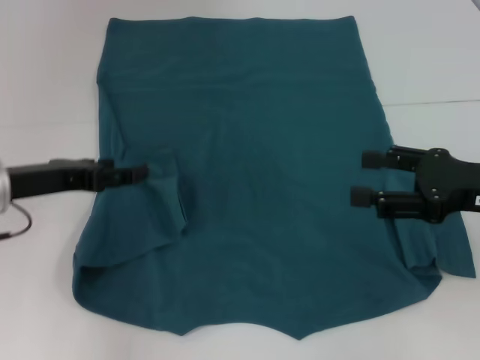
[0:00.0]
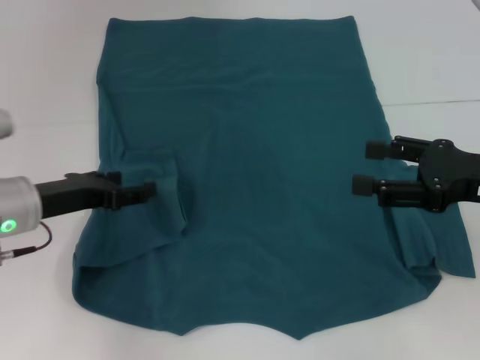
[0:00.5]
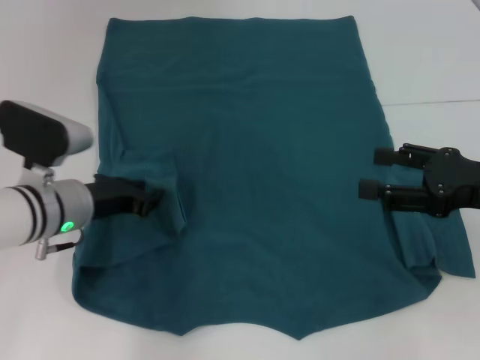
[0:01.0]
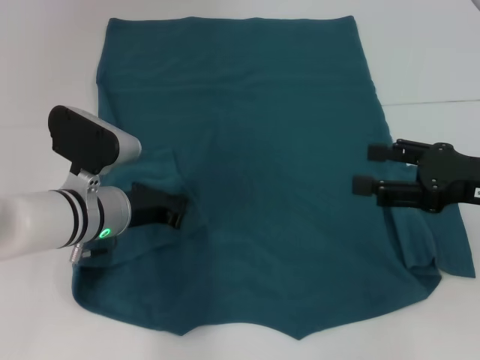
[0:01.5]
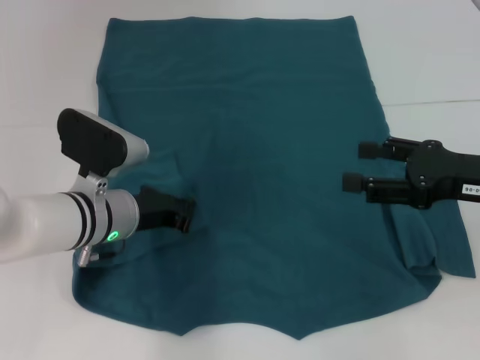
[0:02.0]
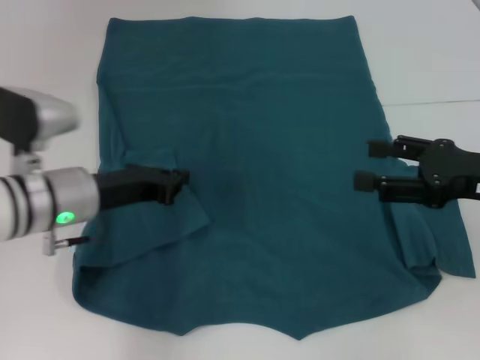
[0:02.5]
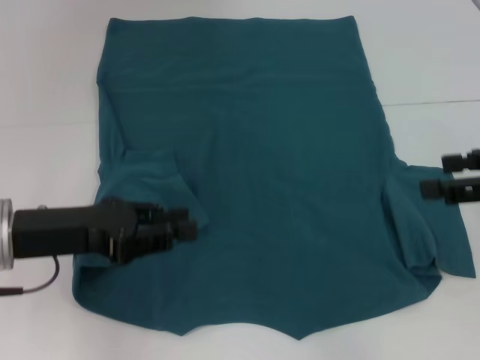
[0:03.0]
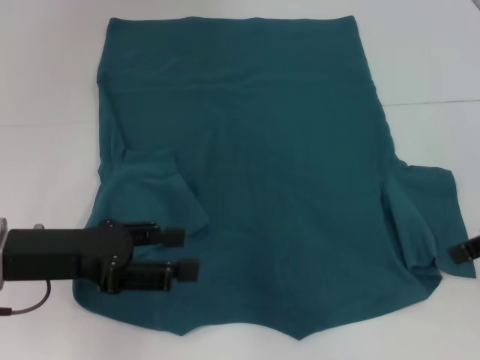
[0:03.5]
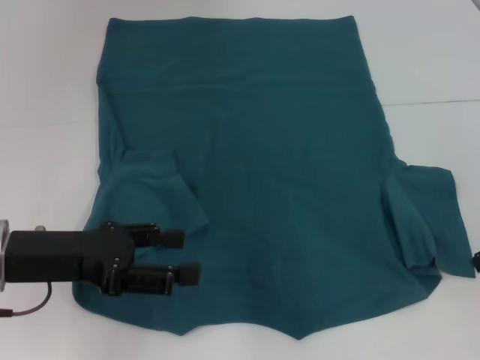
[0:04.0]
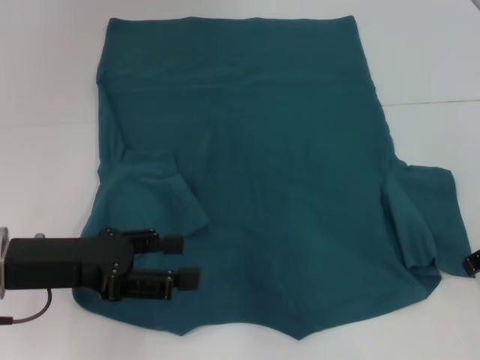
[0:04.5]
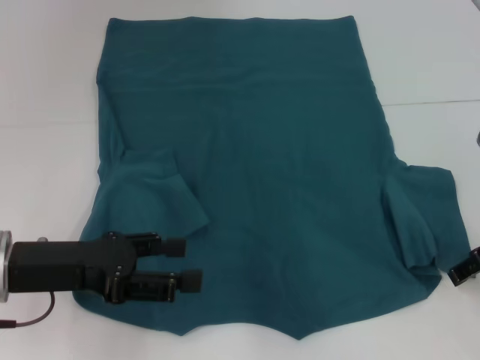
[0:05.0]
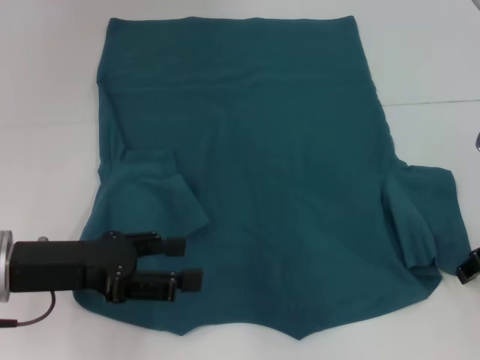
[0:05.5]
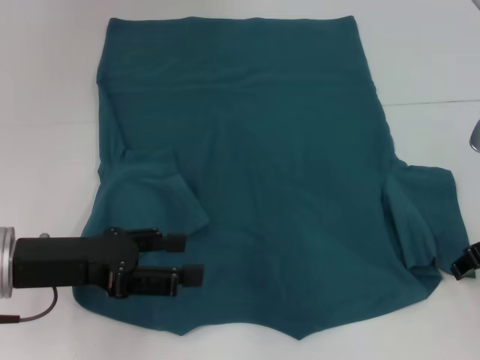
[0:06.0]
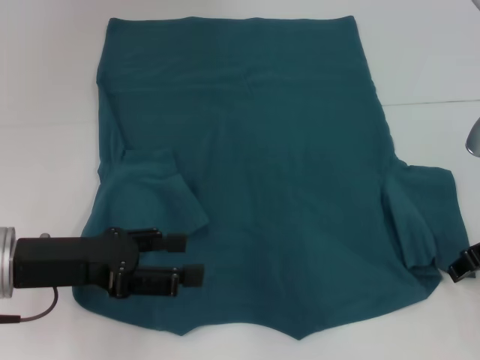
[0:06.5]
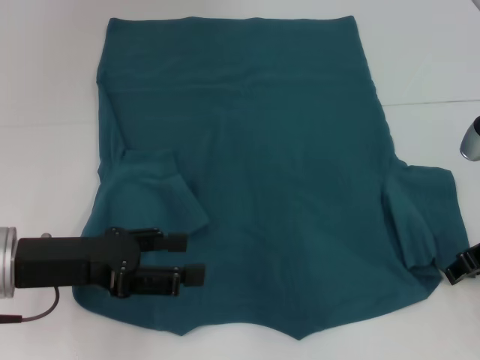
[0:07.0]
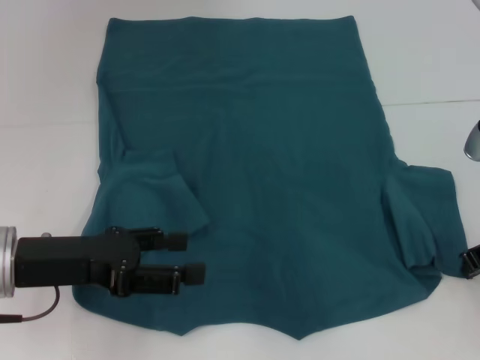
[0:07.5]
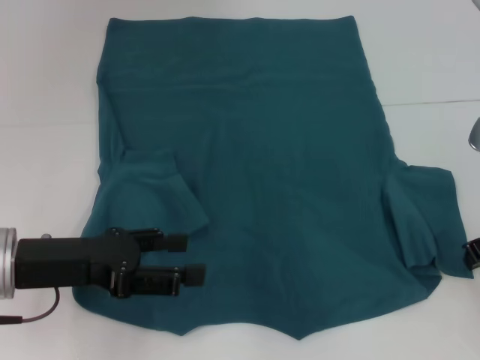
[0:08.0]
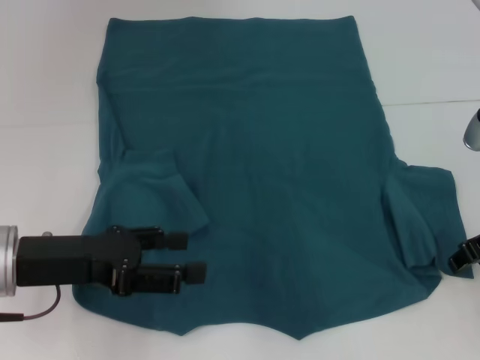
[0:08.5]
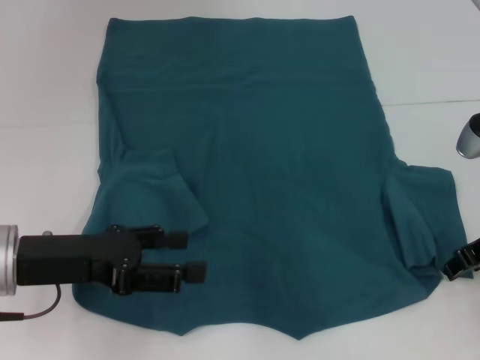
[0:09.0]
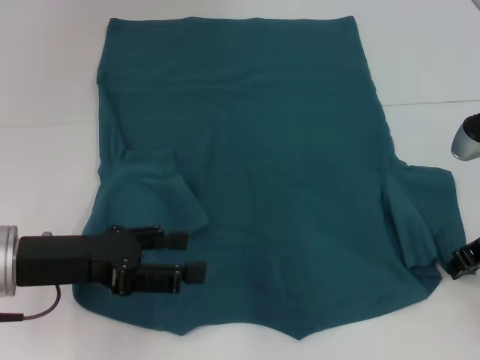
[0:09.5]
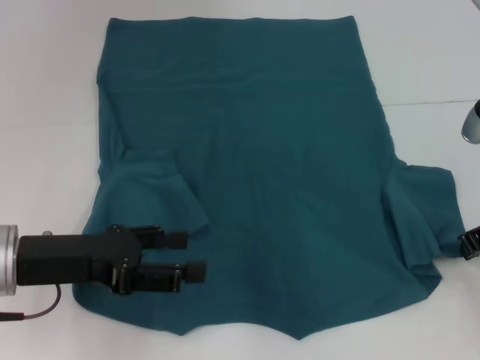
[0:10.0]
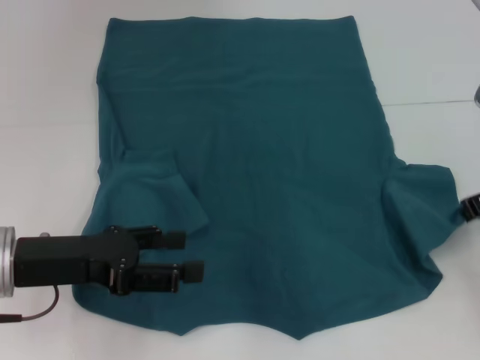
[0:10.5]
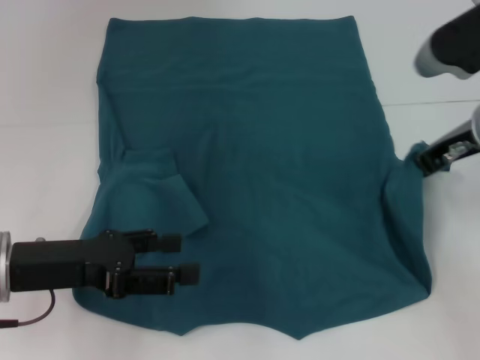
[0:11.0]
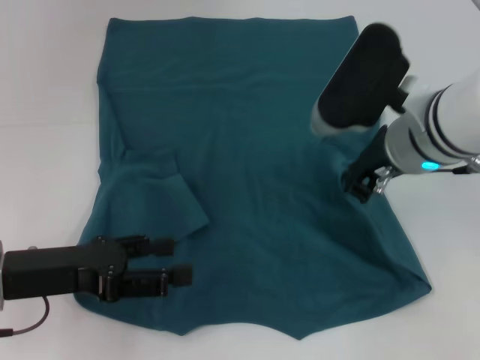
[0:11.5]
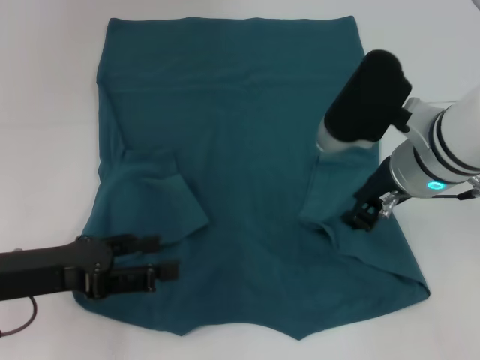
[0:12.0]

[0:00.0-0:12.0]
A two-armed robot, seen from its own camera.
0.0 to 2.0 s: The left gripper is displaced to the right and downward by roughly 15 cm, and closes.
2.0 to 4.0 s: The left gripper is displaced to the left, backward and upward by approximately 15 cm, and opens.
4.0 to 6.0 s: The right gripper is displaced downward by some 5 cm.
8.0 to 10.0 s: There are only small adjustments of the grippers.
10.0 to 12.0 s: The right gripper moves to the left, approximately 15 cm.

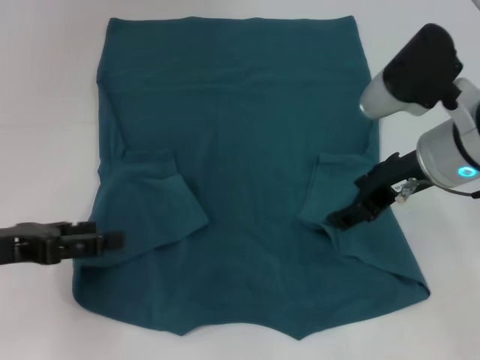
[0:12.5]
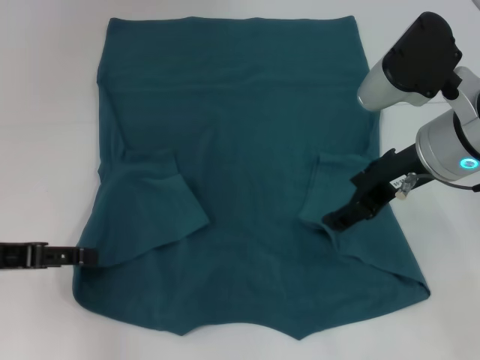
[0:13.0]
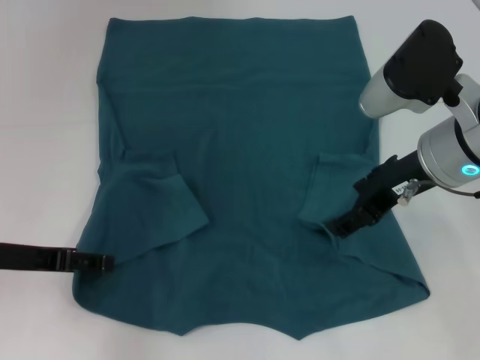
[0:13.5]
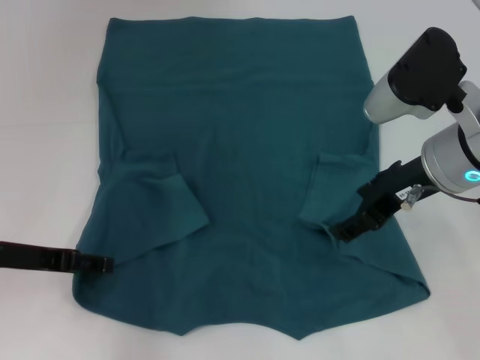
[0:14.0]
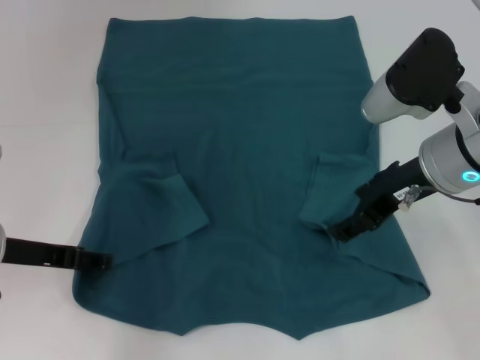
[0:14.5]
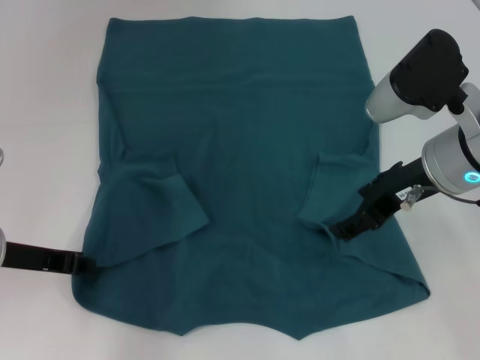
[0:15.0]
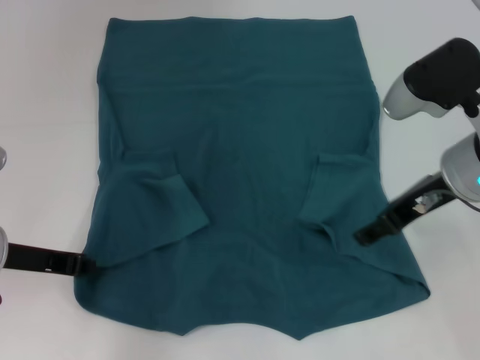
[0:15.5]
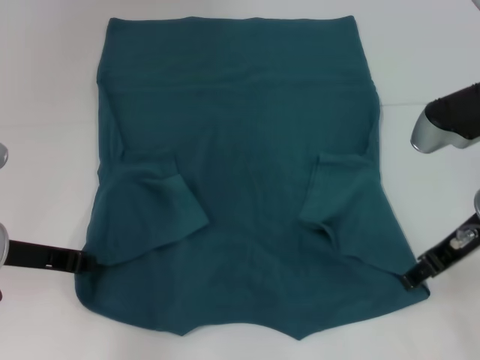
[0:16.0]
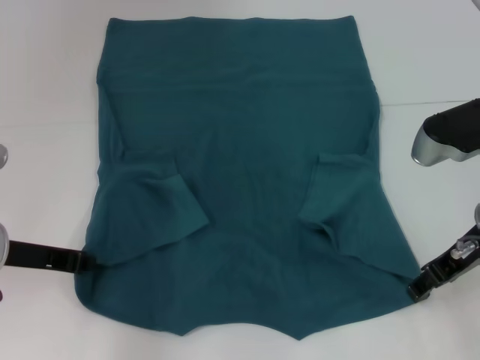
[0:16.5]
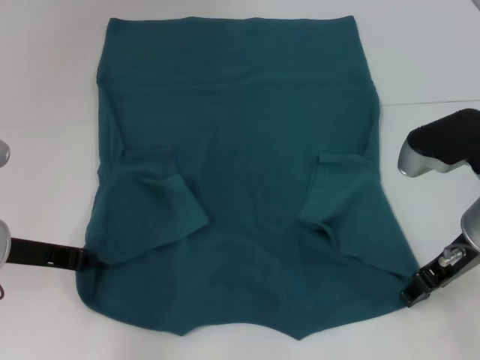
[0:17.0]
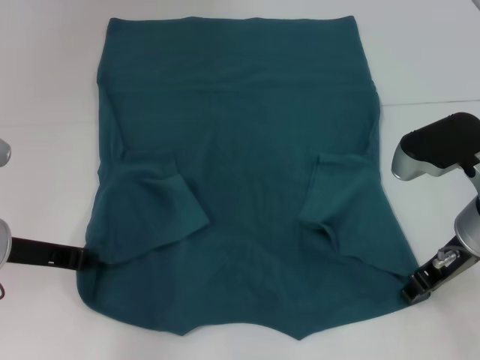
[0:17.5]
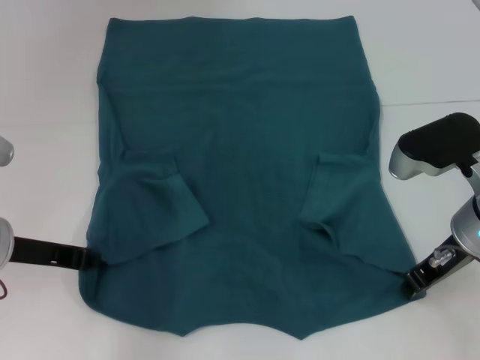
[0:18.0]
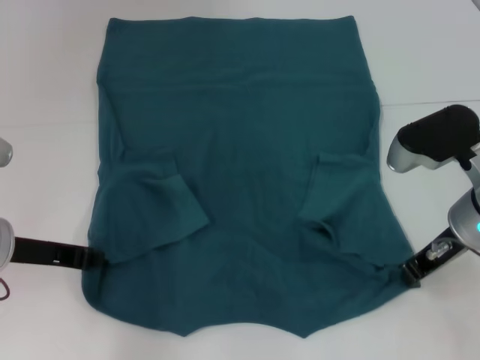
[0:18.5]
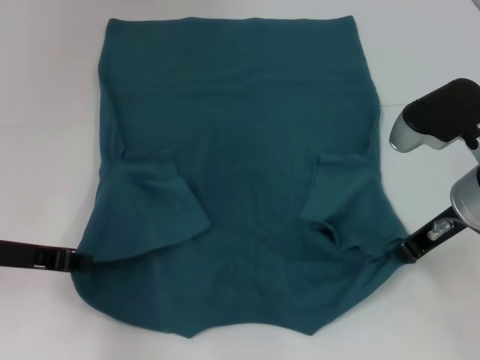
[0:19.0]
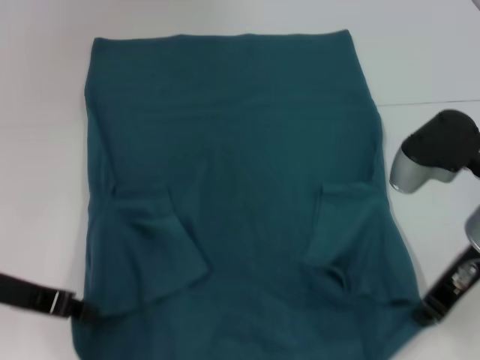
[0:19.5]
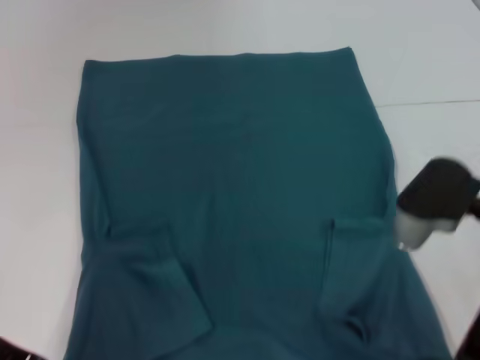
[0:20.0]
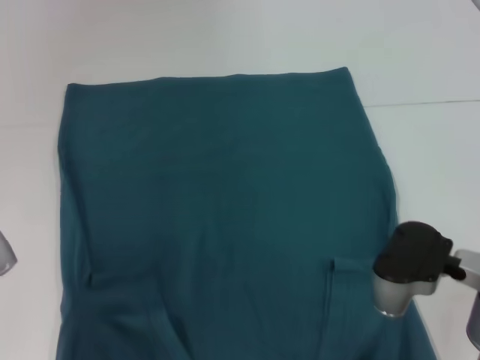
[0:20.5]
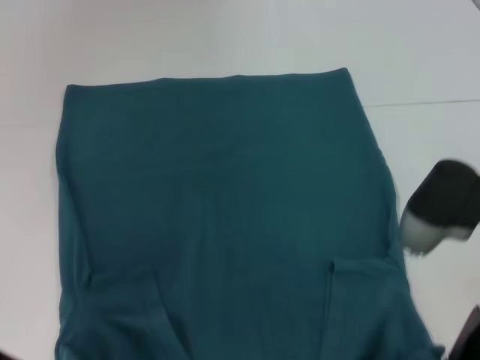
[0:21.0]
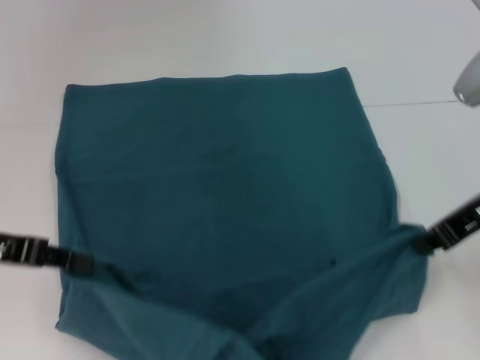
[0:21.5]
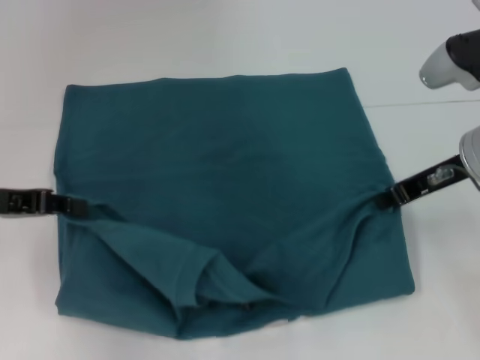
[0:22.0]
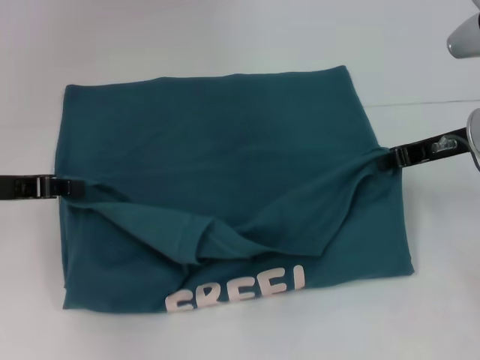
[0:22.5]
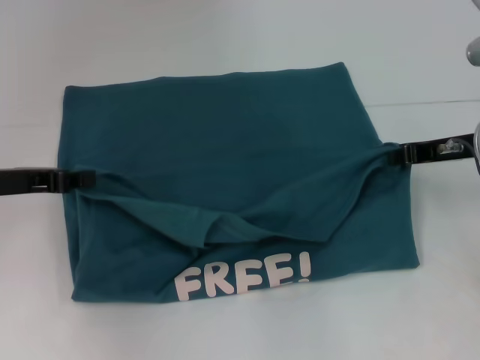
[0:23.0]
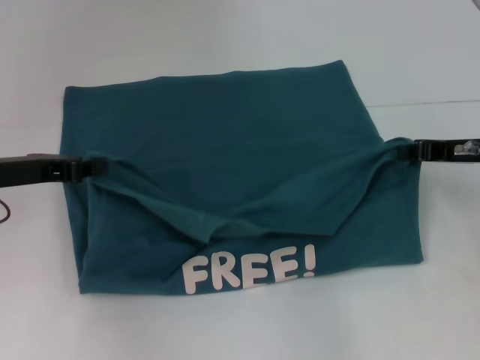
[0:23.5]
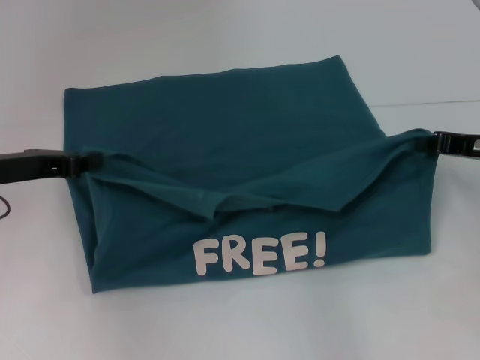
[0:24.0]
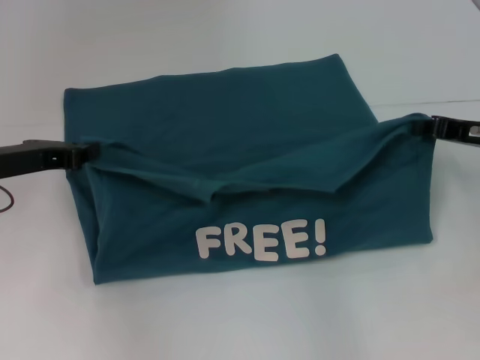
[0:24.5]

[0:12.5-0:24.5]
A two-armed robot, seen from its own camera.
Step, 13.0 to 15.0 s: Grab the bottom left corner with your left hand.
Step, 15.5 to 18.5 s: Grab the bottom right corner with your right hand.
12.5 to 14.5 s: The left gripper moves about 5 cm.
14.5 to 16.5 s: The right gripper ends up about 5 cm from where it was; the left gripper closes up.
16.5 to 18.5 s: The right gripper closes its fingers.
18.5 to 20.5 s: Both grippers travel together backward, about 5 cm.
20.5 to 22.5 s: The left gripper moves forward, approximately 10 cm. The right gripper shifts about 15 cm forward and to the right.
22.5 to 24.5 s: The right gripper ends up roughly 5 cm from where it was.

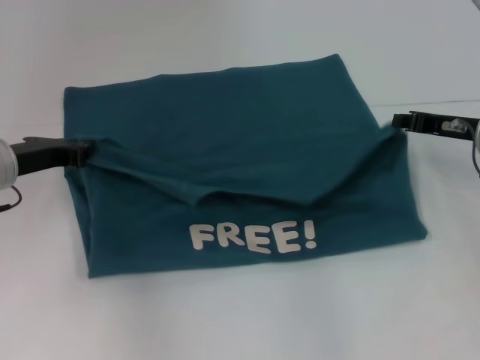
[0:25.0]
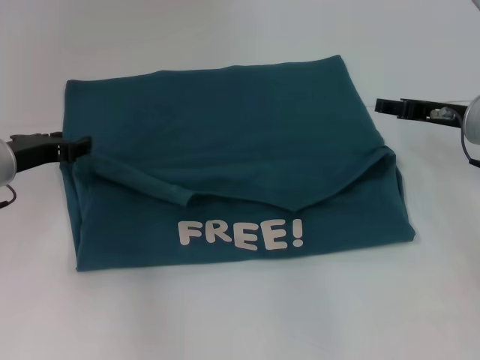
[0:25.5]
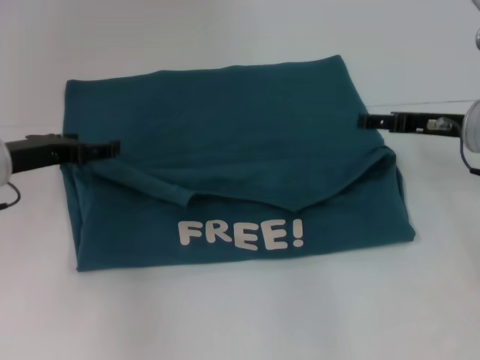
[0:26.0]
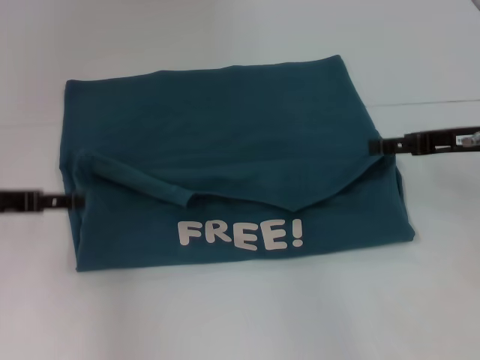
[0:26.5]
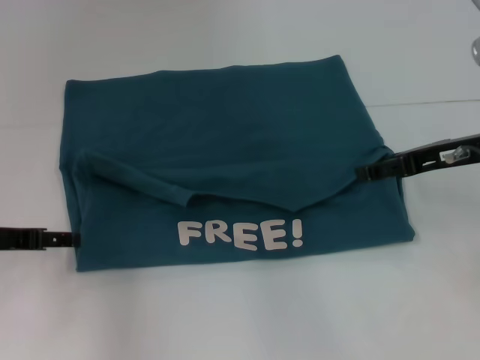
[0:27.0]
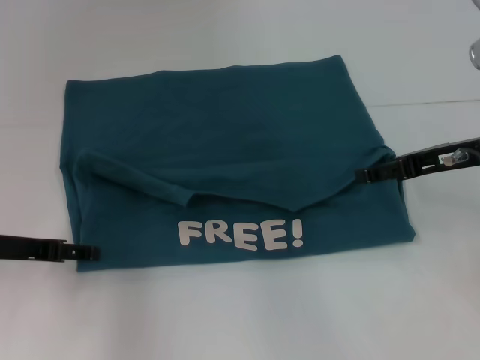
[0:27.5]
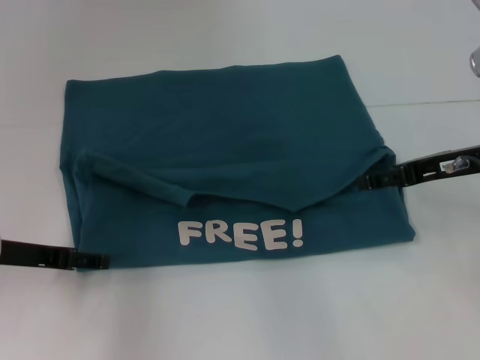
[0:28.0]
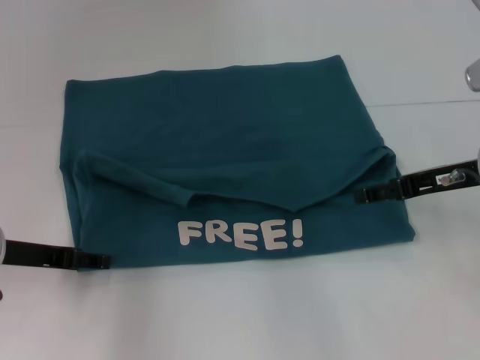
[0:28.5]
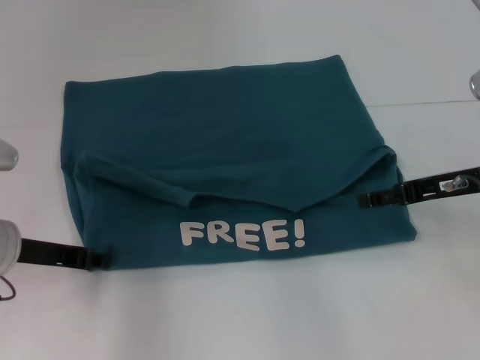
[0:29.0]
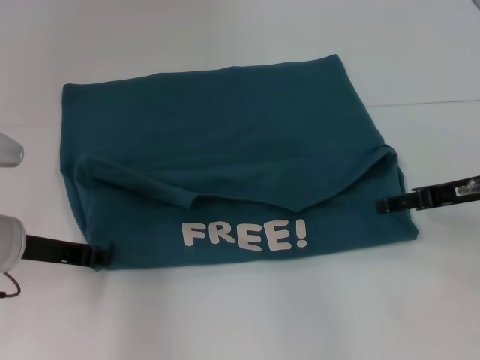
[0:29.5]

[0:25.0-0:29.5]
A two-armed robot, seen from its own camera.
25.0 to 27.0 s: The right gripper shifts by some 5 cm, and opens its fingers. The left gripper goes roughly 5 cm backward, and opens up.
27.0 to 29.5 s: The left gripper closes up.
